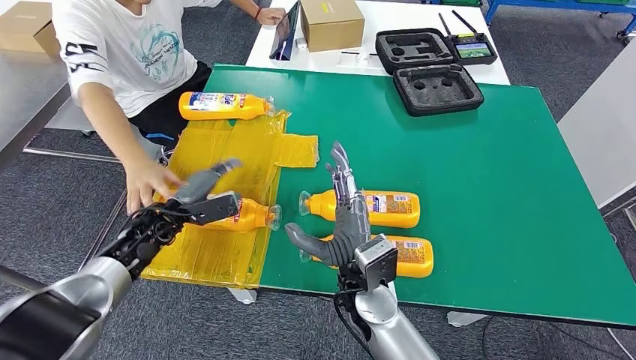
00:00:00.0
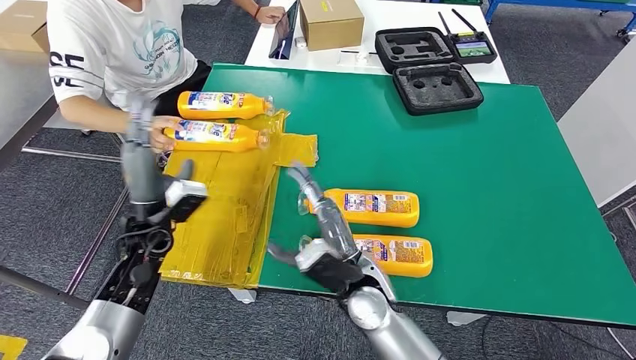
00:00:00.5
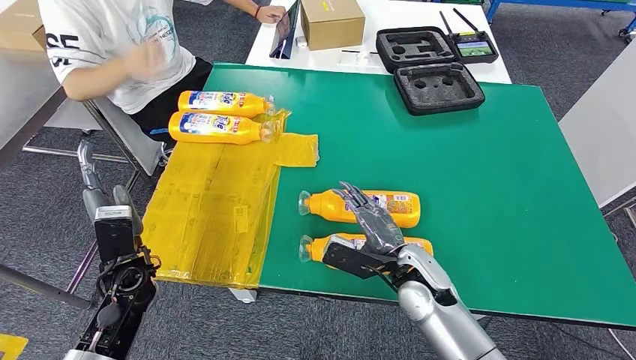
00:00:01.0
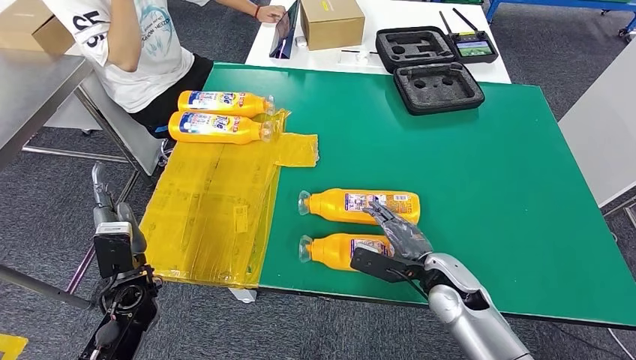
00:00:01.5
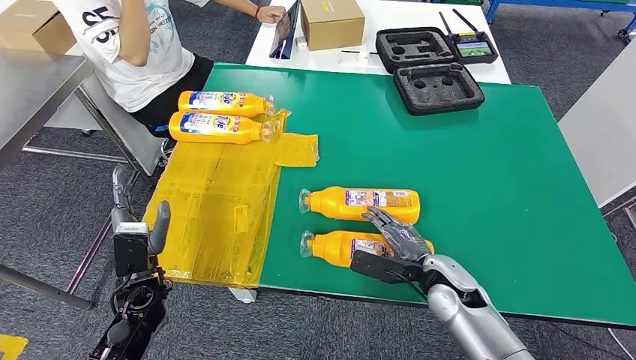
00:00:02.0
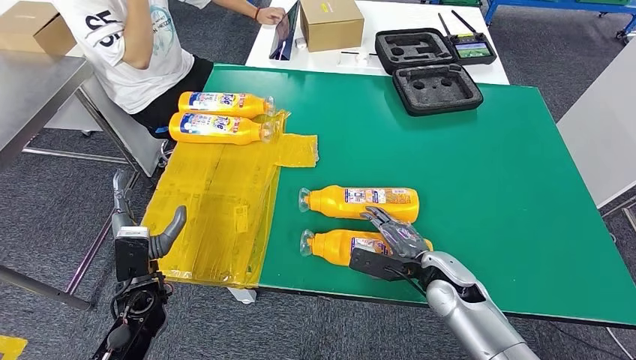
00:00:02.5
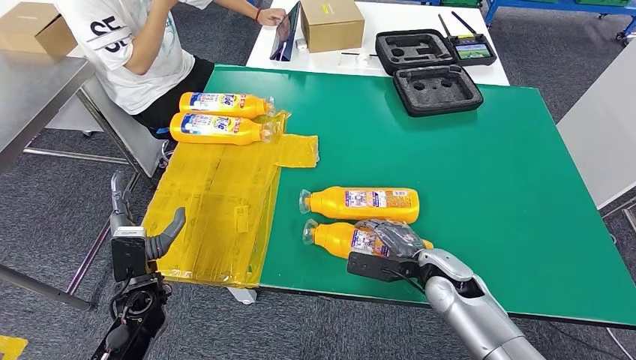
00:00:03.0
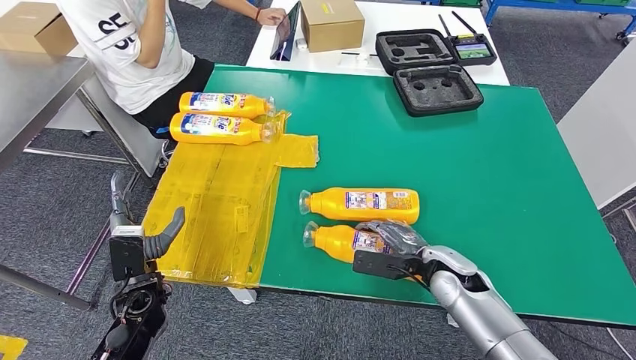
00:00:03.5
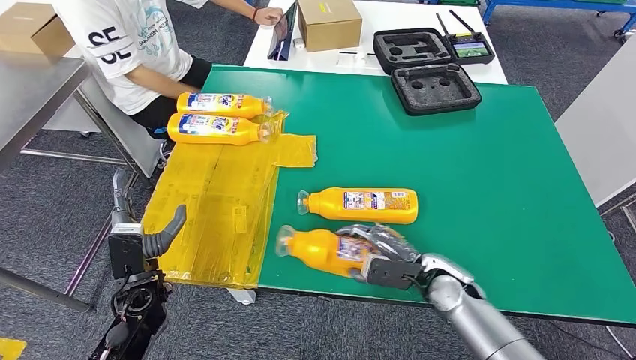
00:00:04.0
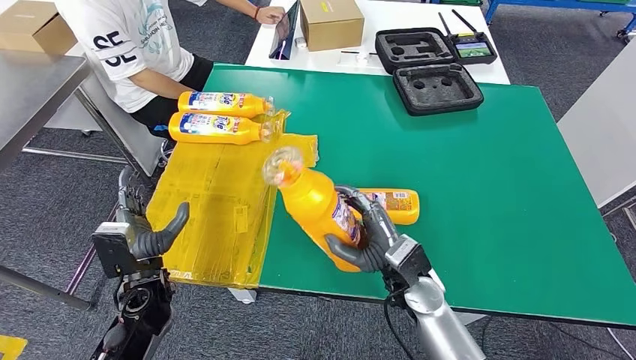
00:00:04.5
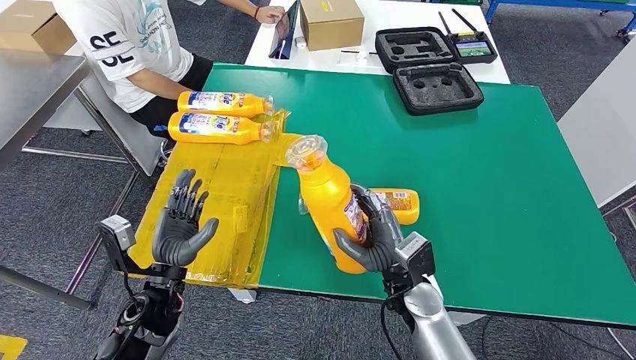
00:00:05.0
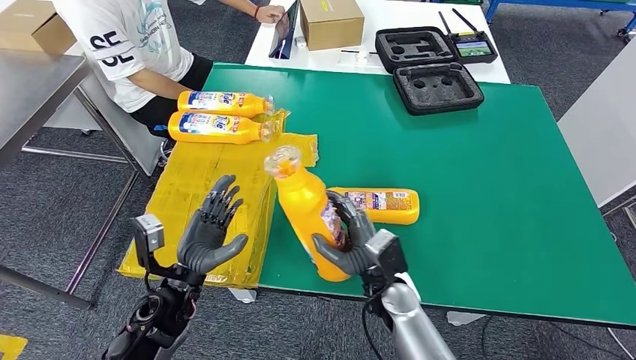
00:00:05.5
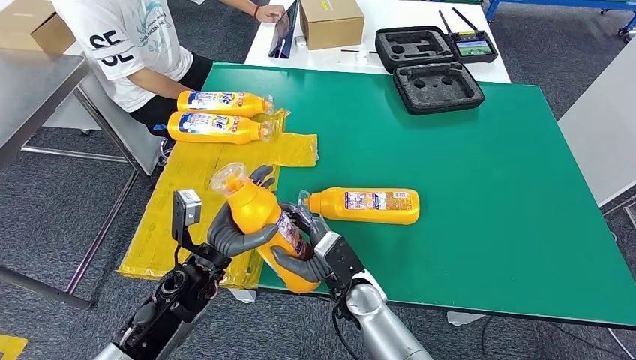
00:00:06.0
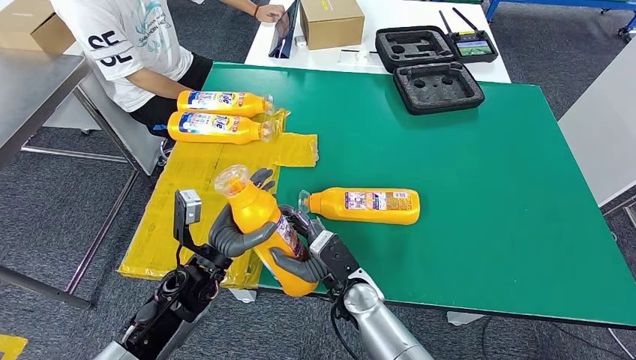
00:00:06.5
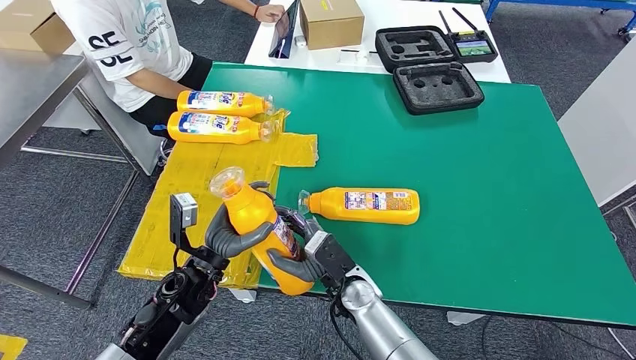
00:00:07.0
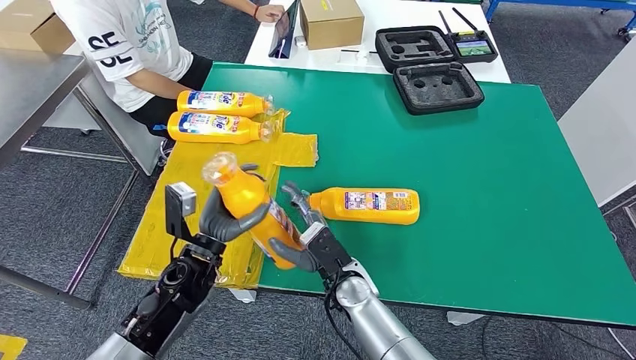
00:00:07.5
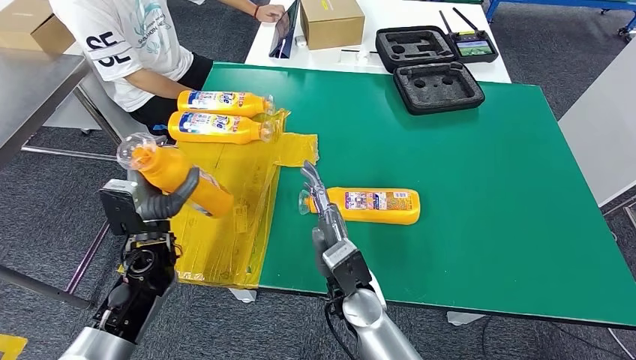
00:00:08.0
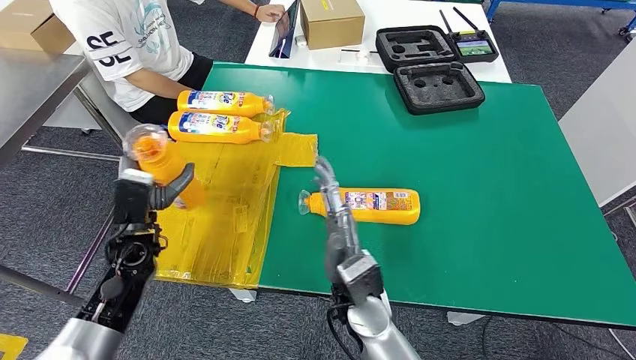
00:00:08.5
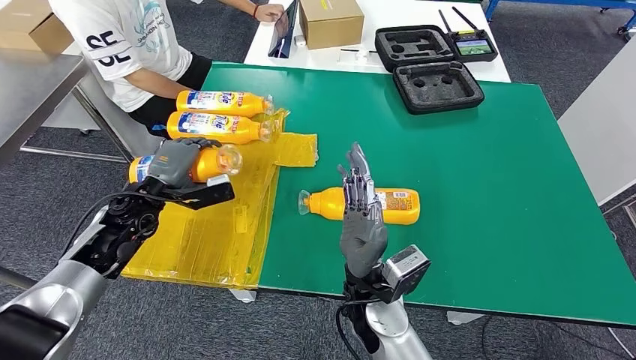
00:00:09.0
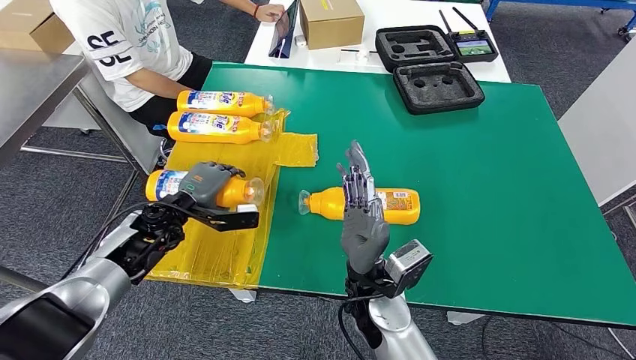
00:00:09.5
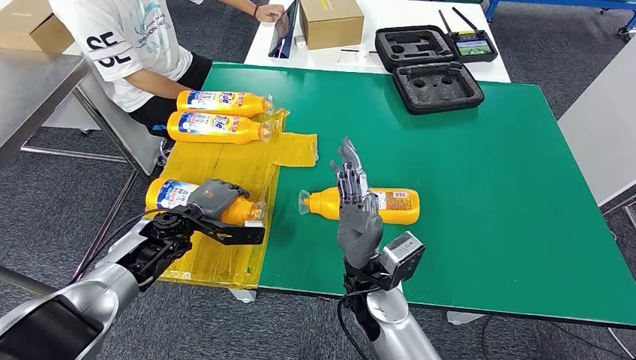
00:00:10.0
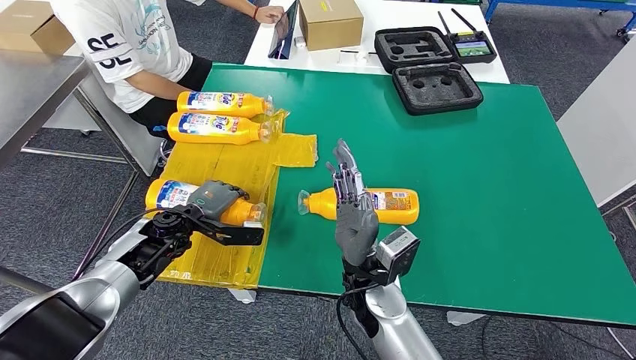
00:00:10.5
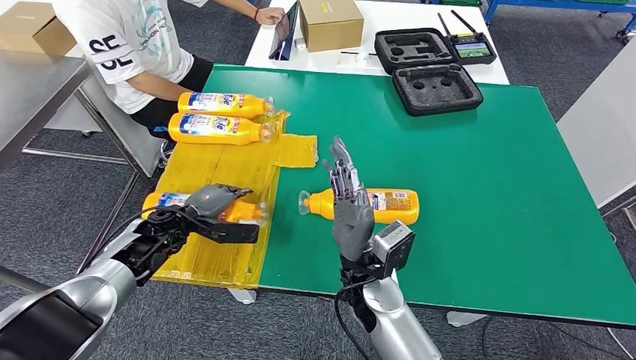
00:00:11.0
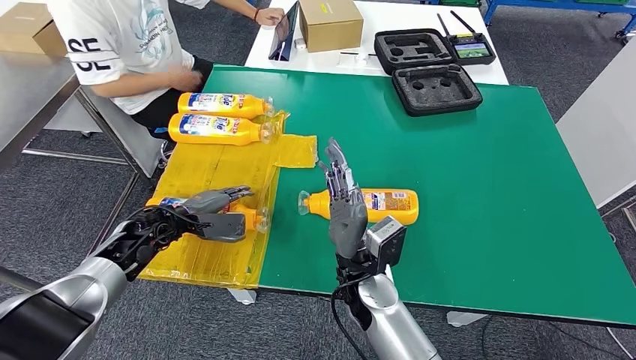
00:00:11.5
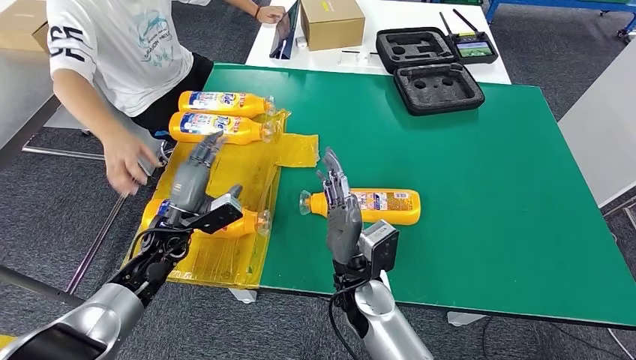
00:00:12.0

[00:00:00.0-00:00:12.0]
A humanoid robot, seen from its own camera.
Step, 00:00:00.0 to 00:00:04.5: Pick up the bottle from the table.
Step, 00:00:05.0 to 00:00:10.0: Flip the bottle to face forward.
00:00:06.0 to 00:00:08.0: The left hand goes roughly 10 cm to the left.
00:00:08.0 to 00:00:10.0: The left hand moves forward, approximately 5 cm.

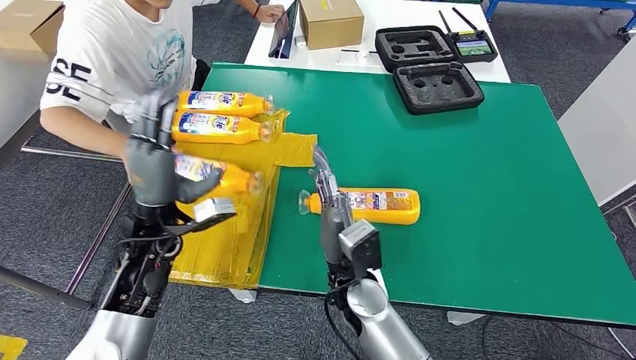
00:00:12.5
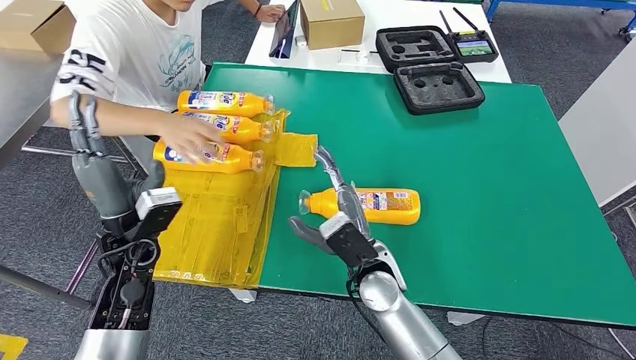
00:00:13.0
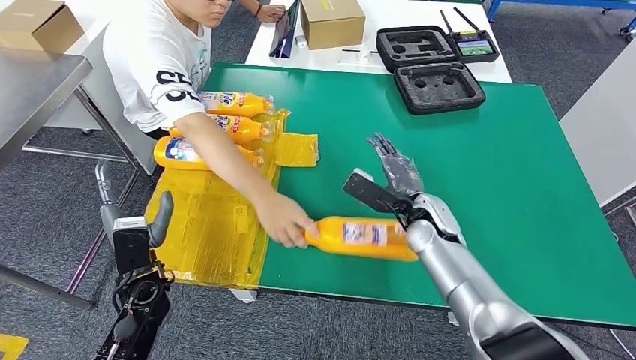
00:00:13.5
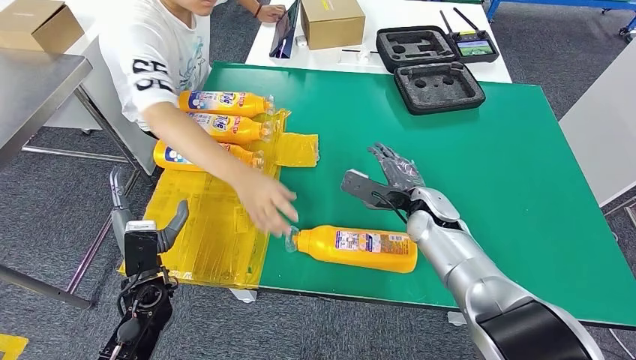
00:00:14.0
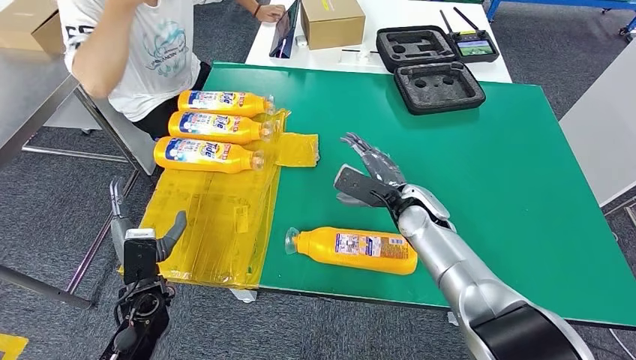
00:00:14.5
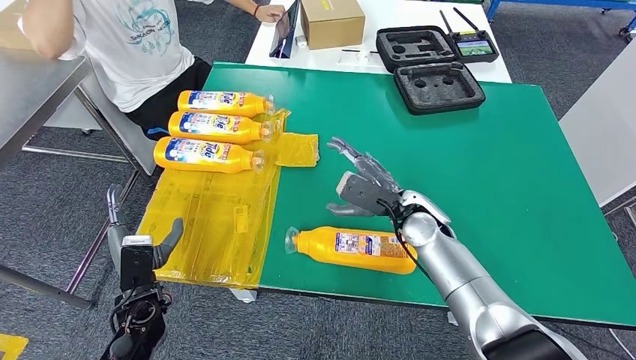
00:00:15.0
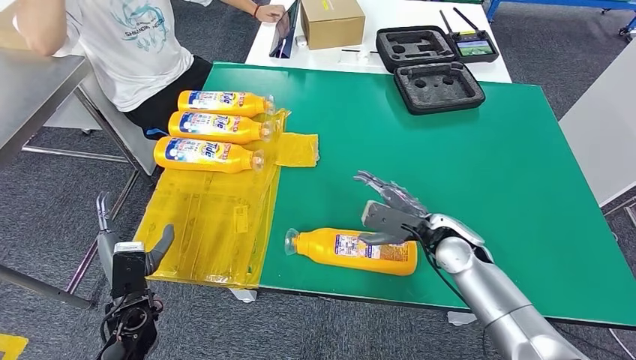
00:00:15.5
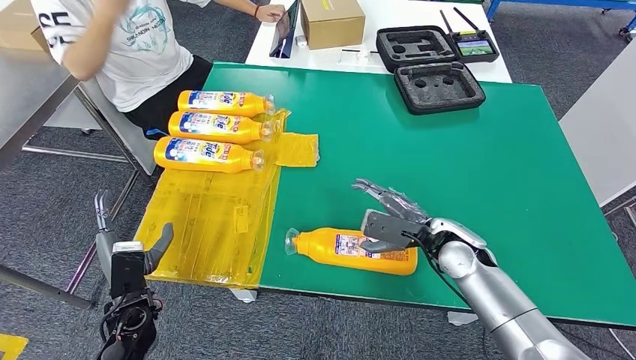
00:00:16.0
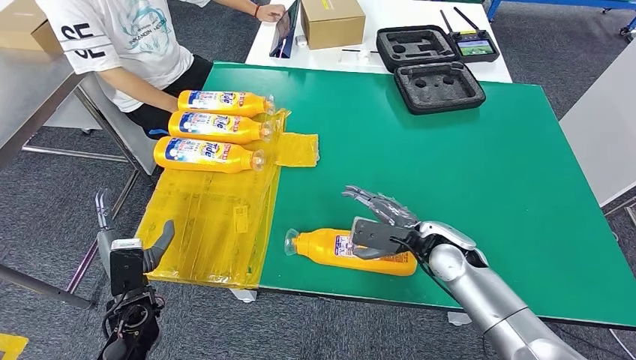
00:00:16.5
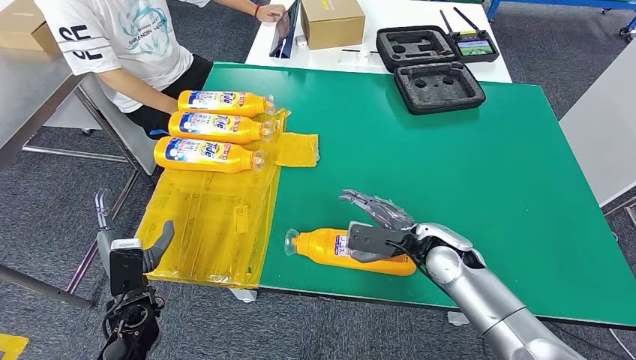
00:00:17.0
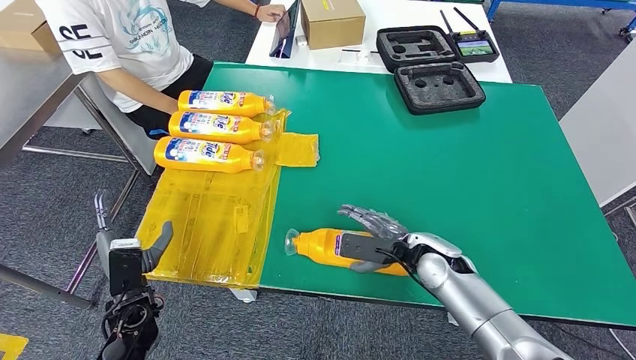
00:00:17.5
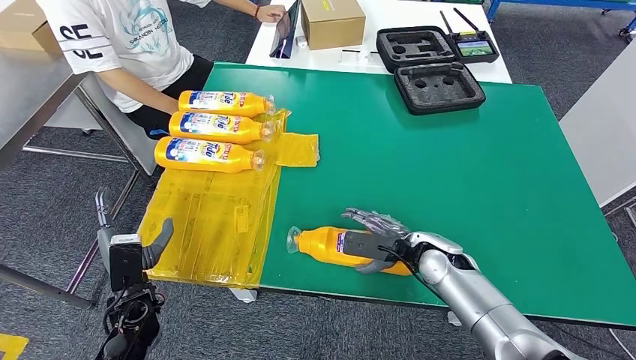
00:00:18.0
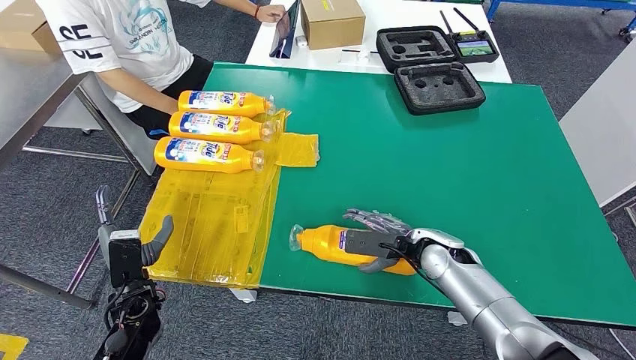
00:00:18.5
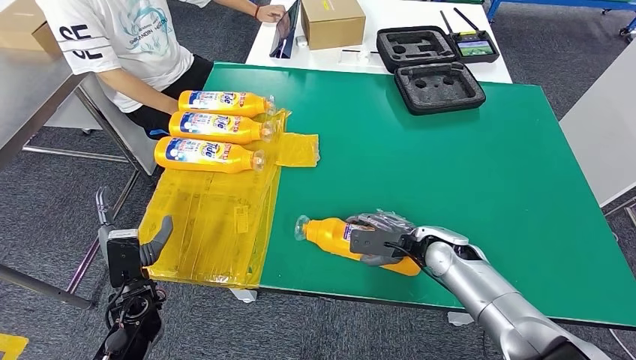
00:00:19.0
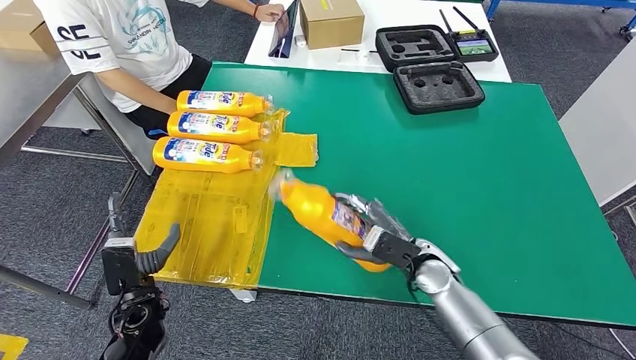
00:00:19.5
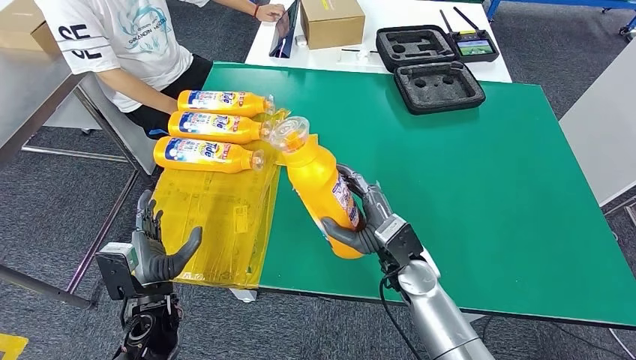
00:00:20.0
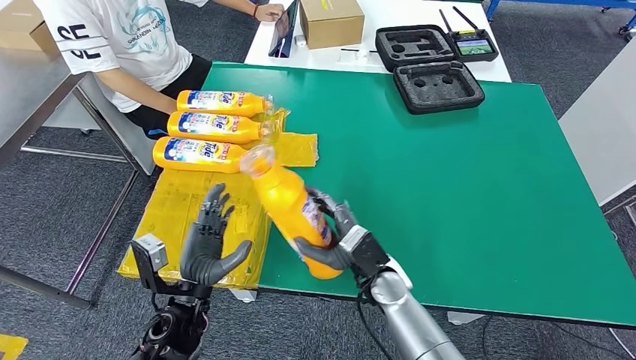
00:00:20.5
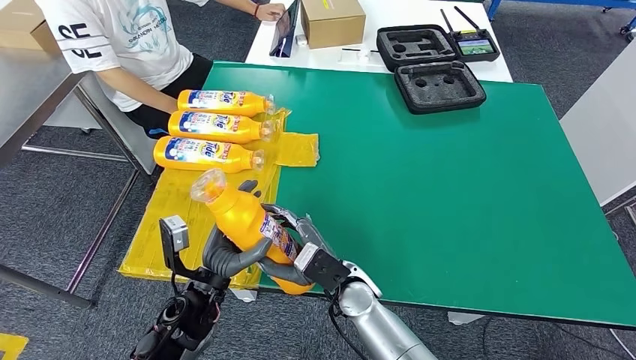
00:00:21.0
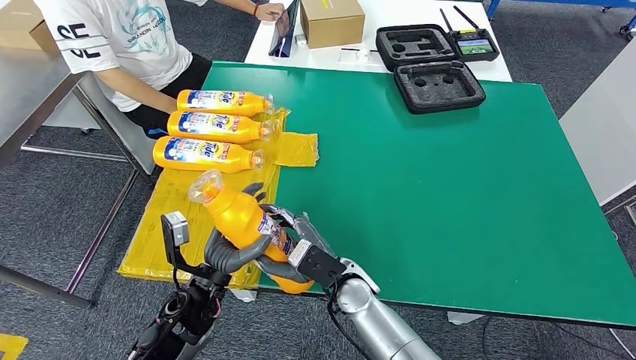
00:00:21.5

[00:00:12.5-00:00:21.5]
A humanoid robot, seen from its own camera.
Step, 00:00:12.5 to 00:00:20.0: Pick up the bottle from the table.
00:00:14.5 to 00:00:17.0: The right hand is displaced backward by roughly 5 cm.
00:00:19.5 to 00:00:21.5: The right hand moves to the left, approximately 15 cm. The left hand goes roughly 10 cm to the right.
